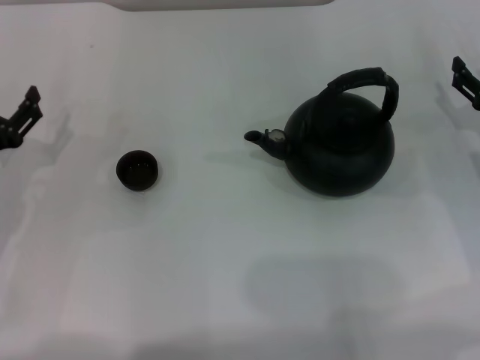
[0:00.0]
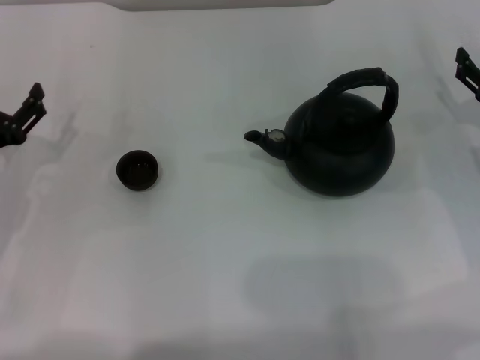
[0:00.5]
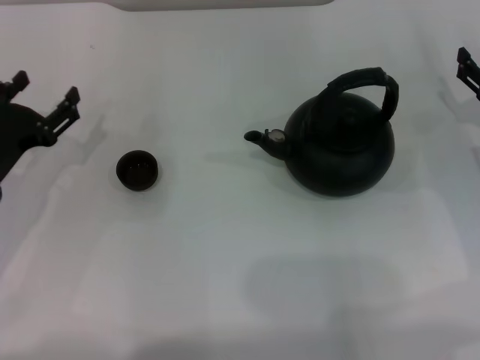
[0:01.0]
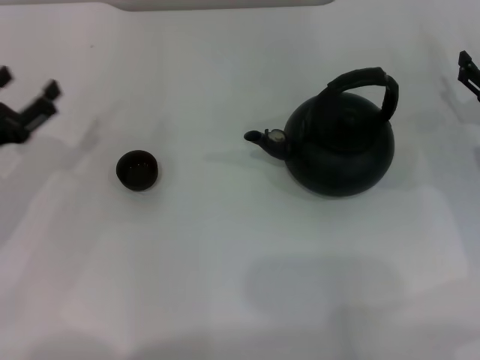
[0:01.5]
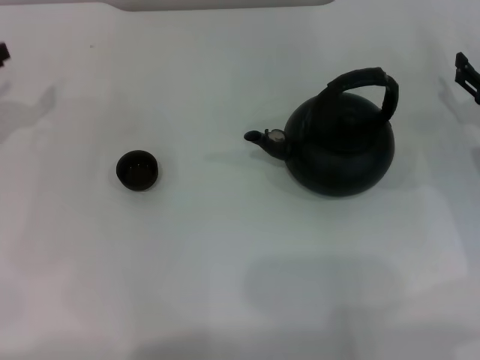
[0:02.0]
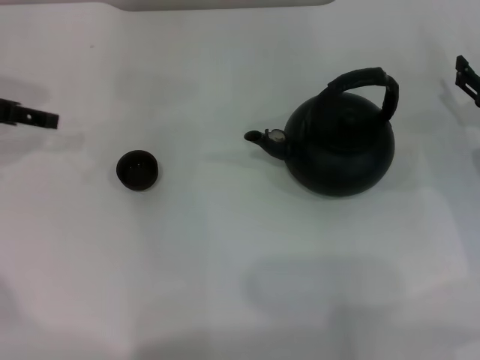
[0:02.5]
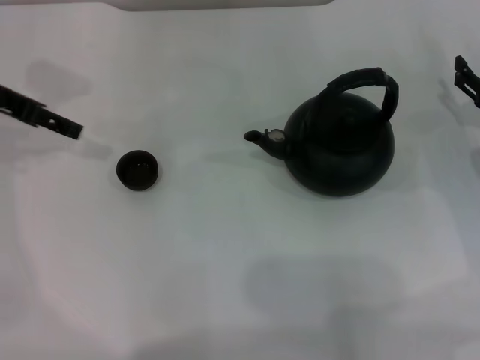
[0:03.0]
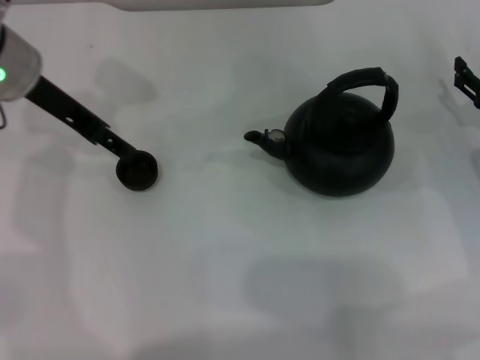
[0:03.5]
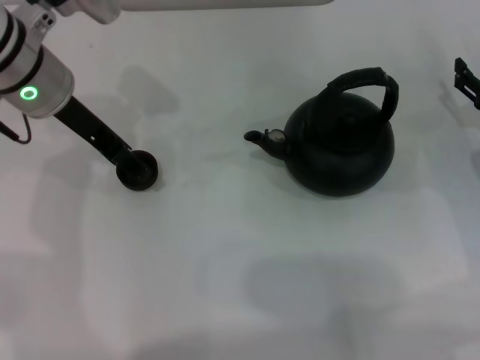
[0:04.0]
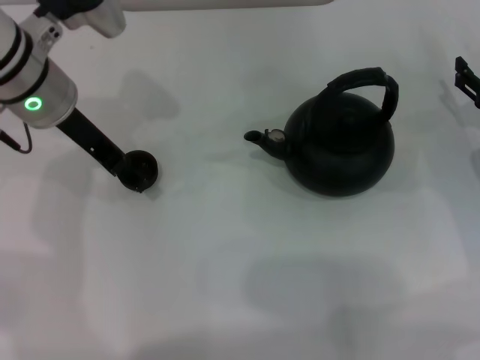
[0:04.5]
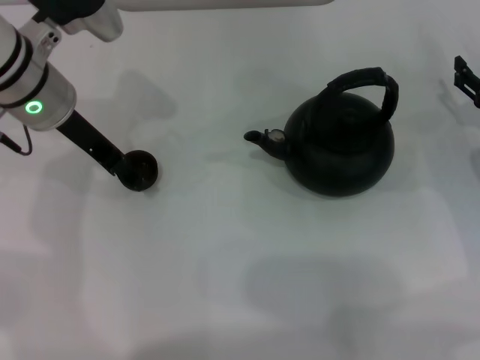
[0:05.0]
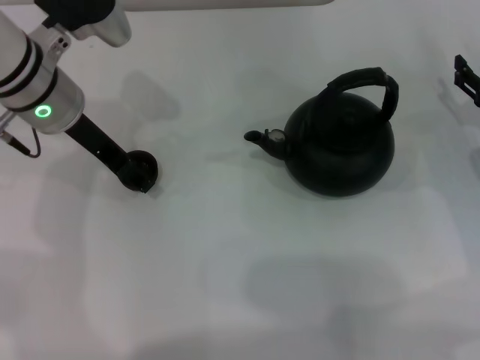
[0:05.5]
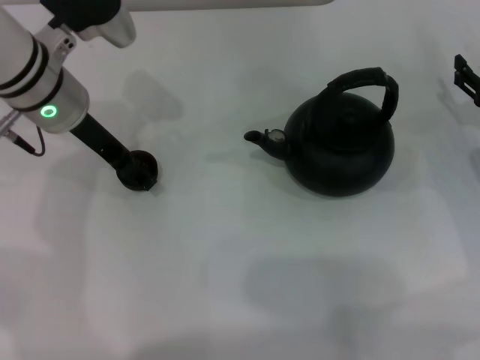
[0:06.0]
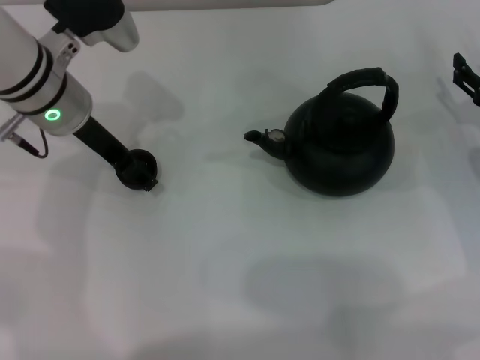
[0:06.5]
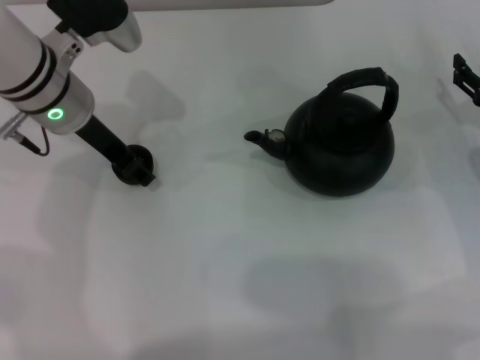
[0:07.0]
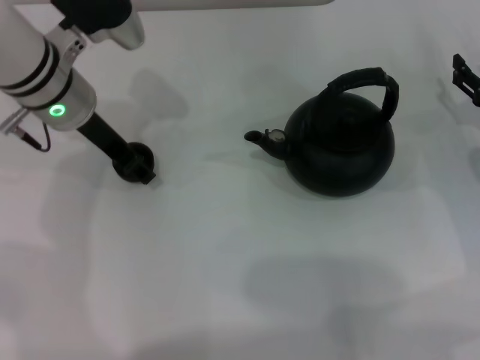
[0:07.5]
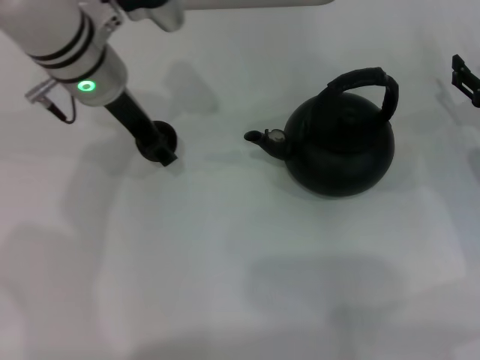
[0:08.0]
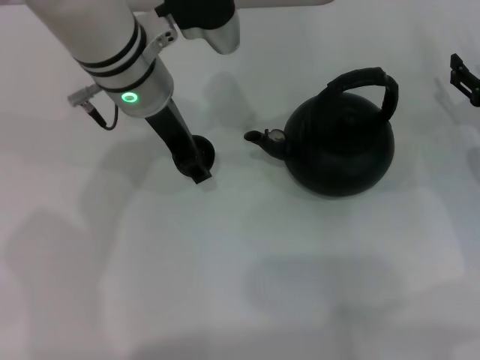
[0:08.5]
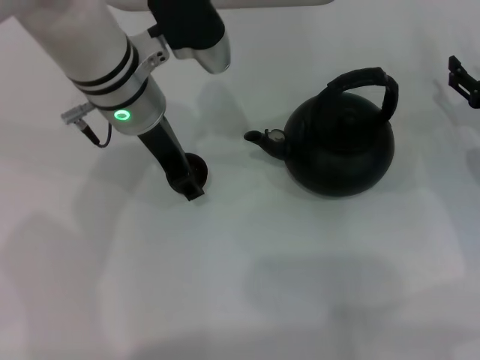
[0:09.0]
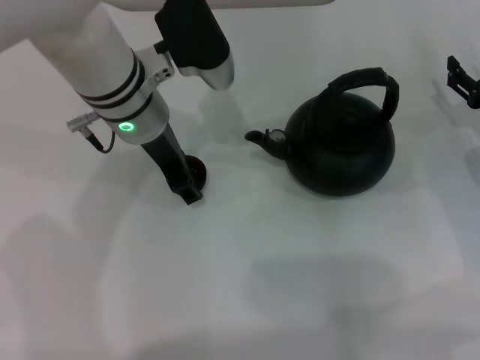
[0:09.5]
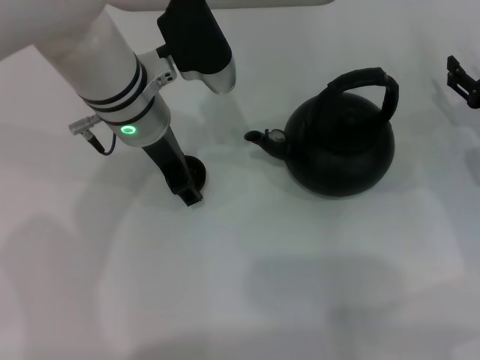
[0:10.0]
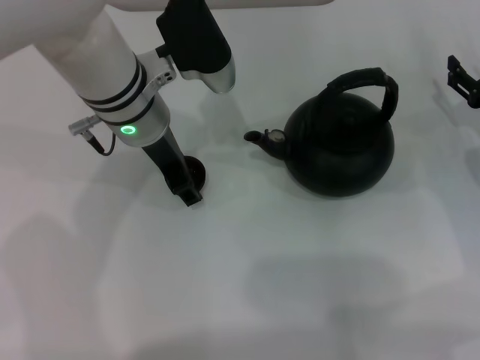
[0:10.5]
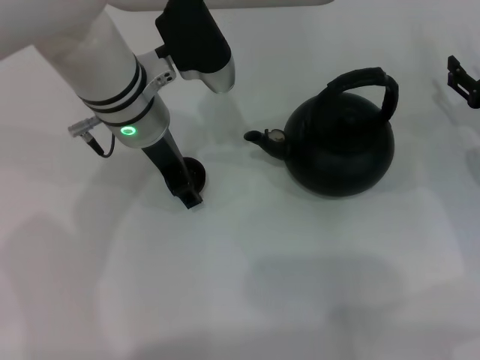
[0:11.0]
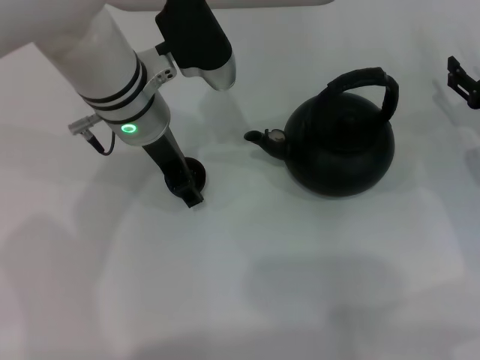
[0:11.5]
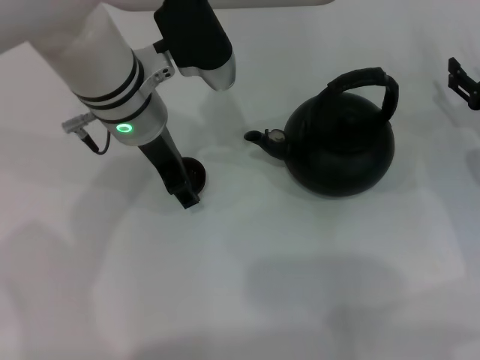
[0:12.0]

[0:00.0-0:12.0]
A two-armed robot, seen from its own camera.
Task of the whole recording: Grasp the handle of the teapot with one hand and pour tea into the teacup.
Step, 0:00.0 to 0:07.5: Pick up the teacup with the left gripper.
0:00.0 to 0:02.0: The left gripper travels upward, forward and to the left by roughly 10 cm.
0:02.0 to 0:04.0: The left gripper moves to the right, about 20 cm.
0:04.0 to 0:06.0: There are only small adjustments of the grippers.
0:06.0 to 0:08.0: The left gripper closes.
0:08.0 to 0:10.0: The left gripper ends up about 5 cm from where it was.
0:10.0 to 0:12.0: The left gripper opens its fingers.

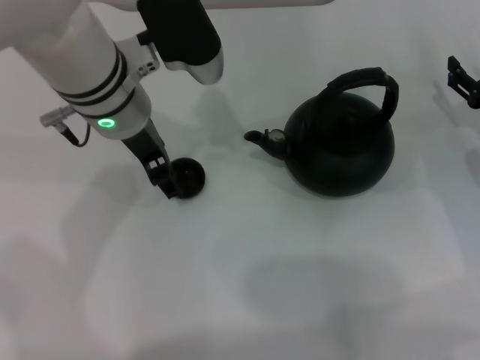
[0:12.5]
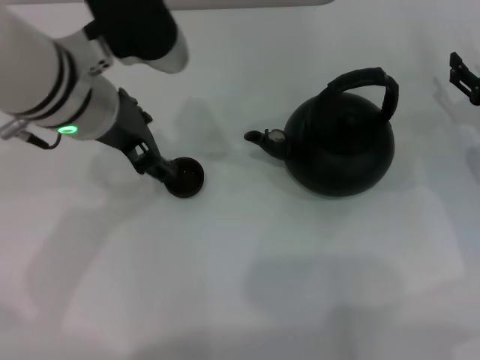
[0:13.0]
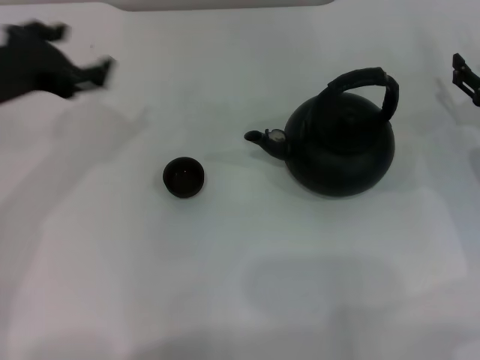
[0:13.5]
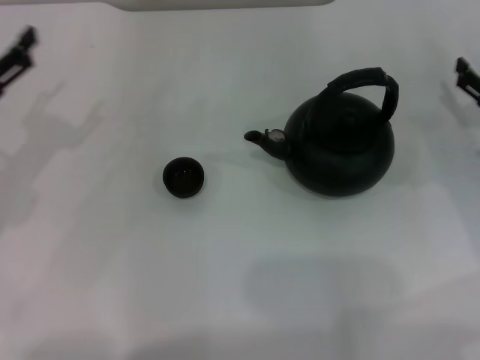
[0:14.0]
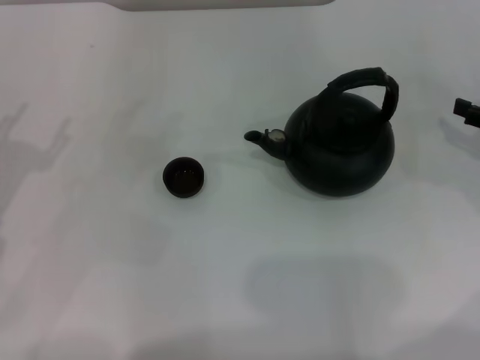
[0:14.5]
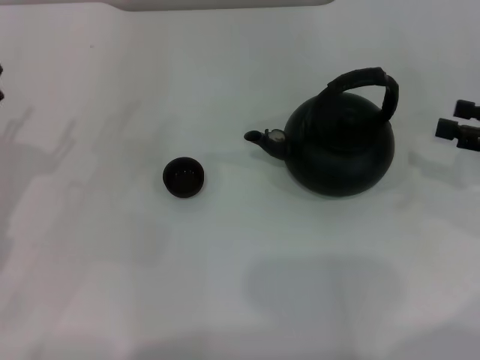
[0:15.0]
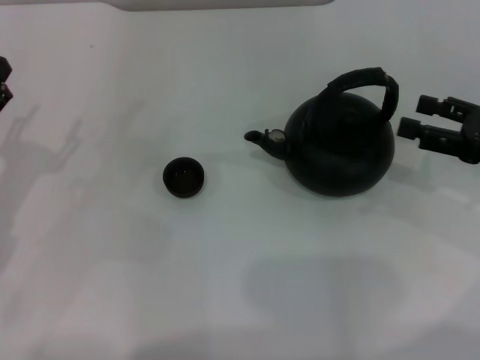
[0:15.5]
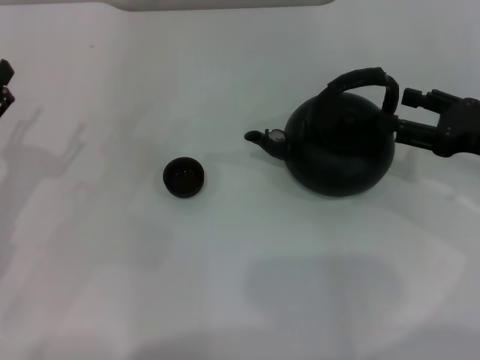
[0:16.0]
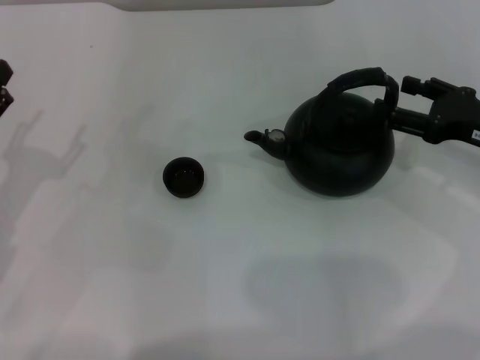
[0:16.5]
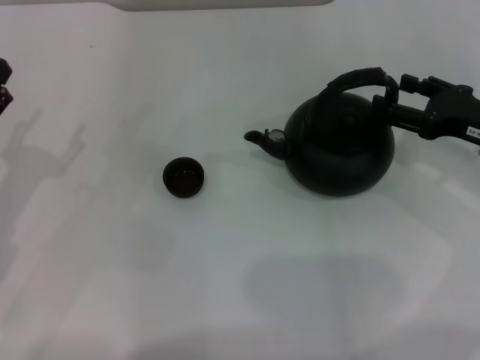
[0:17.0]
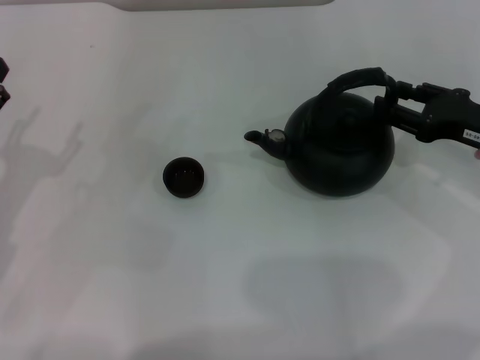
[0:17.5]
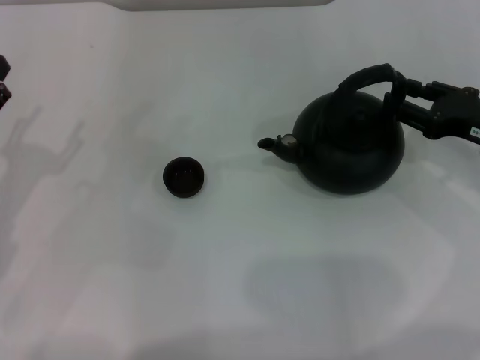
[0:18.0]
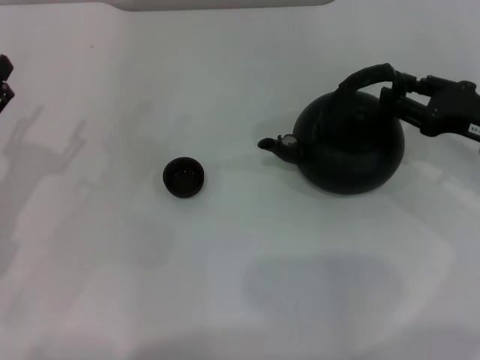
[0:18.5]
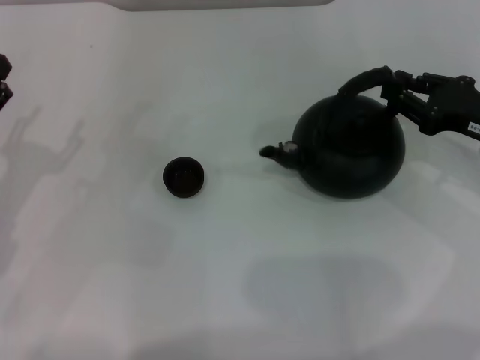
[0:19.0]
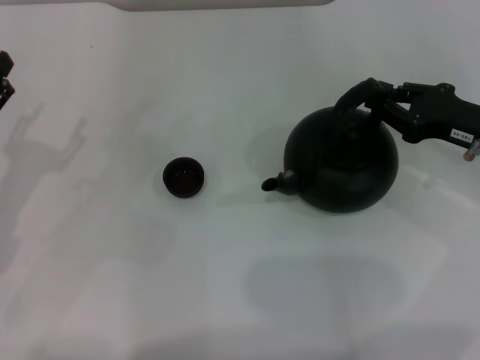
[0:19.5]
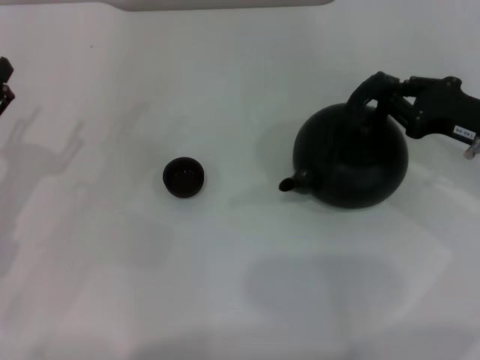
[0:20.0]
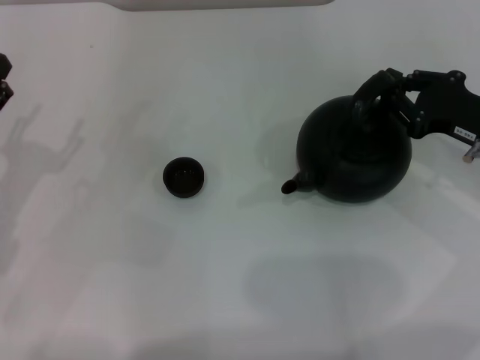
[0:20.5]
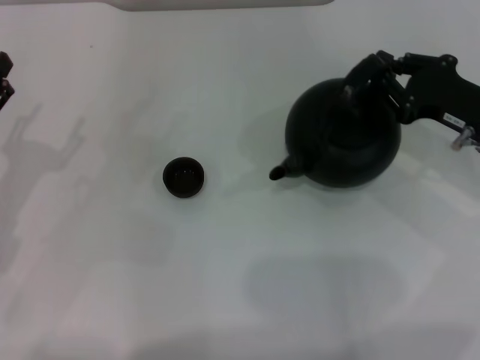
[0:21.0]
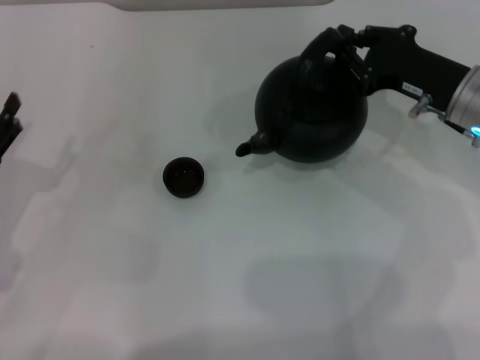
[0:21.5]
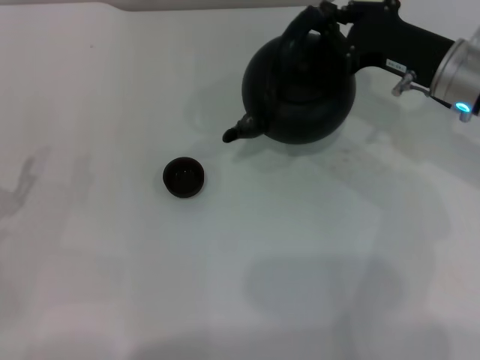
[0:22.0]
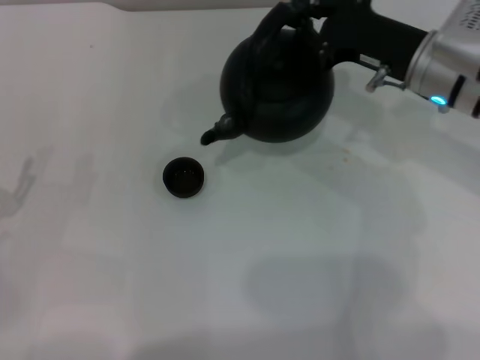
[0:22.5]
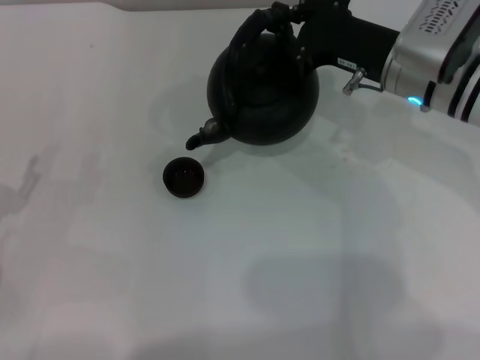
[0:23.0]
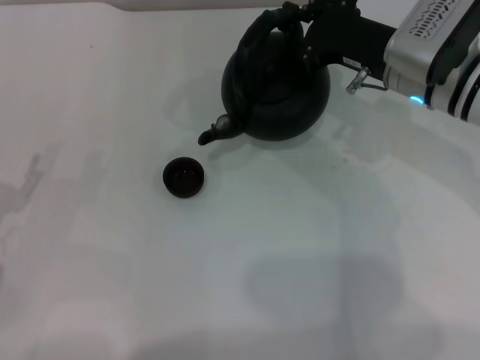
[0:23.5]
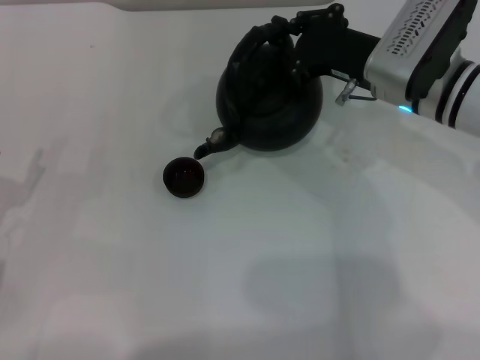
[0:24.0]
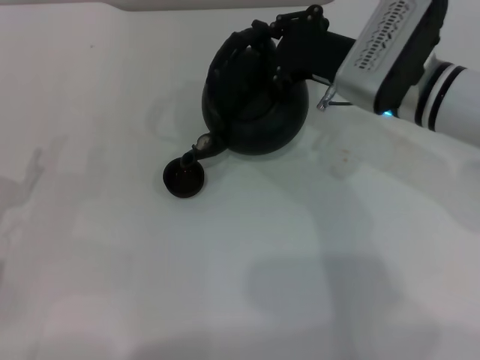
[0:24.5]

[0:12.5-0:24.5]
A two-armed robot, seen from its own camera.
Task of the whole recording: Grasp the handle of the teapot with one hand and pour tea into the teacup.
Step, 0:13.5 to 0:21.0: Pick up the teapot with the right gripper.
0:12.5 to 0:14.5: The left gripper heads to the left and backward, covering some 25 cm, while the right gripper is displaced to the right by roughly 5 cm.
0:14.5 to 0:16.5: The right gripper is displaced to the left by approximately 5 cm.
0:16.5 to 0:18.5: The right gripper closes its fingers.
0:18.5 to 0:20.5: The right gripper closes.
0:20.5 to 0:22.5: The left gripper shifts by about 5 cm; the right gripper moves to the left and forward, about 10 cm.
0:22.5 to 0:24.5: The grippers stay close to where they were, moving slightly.

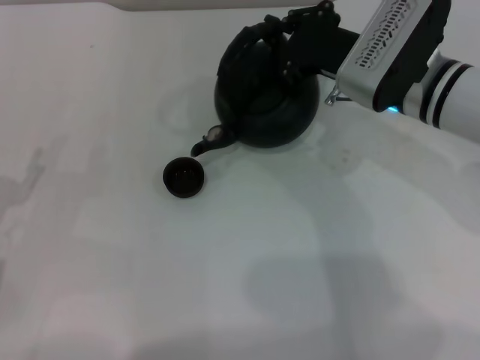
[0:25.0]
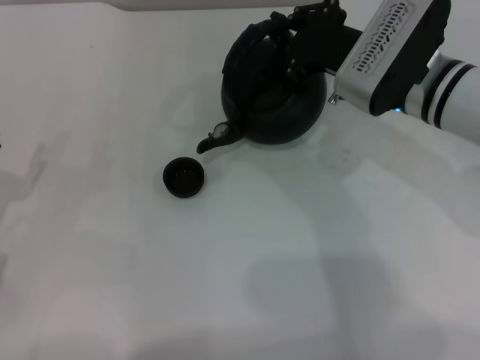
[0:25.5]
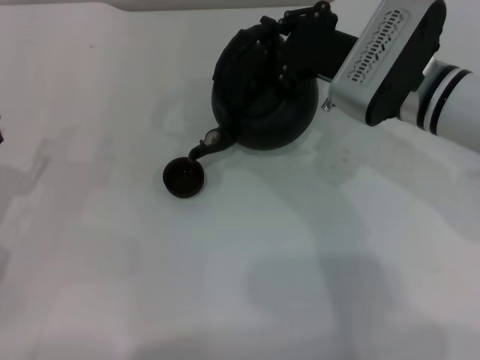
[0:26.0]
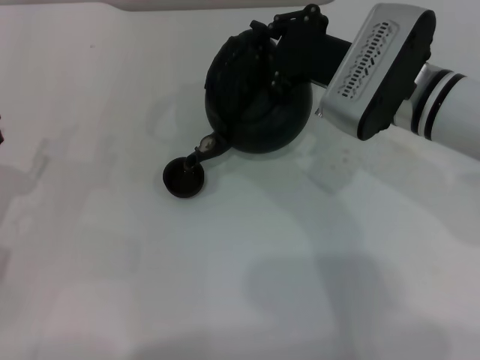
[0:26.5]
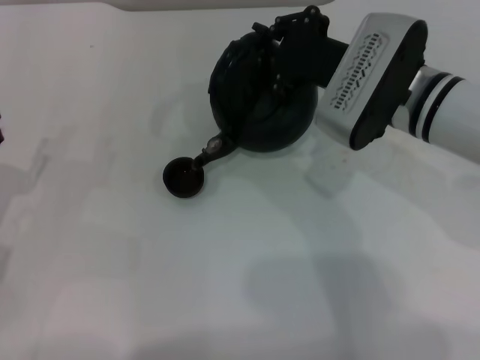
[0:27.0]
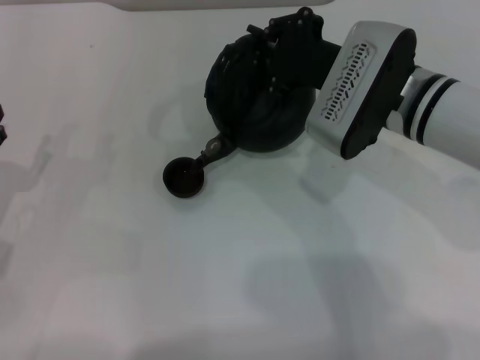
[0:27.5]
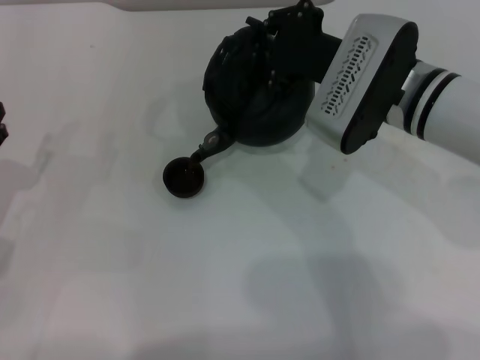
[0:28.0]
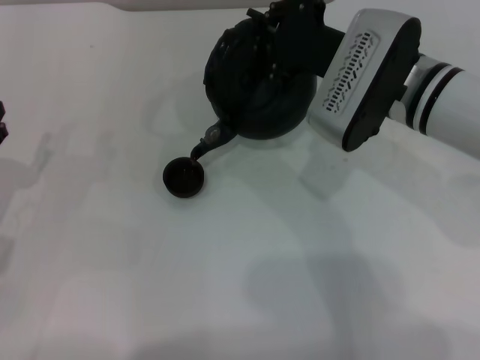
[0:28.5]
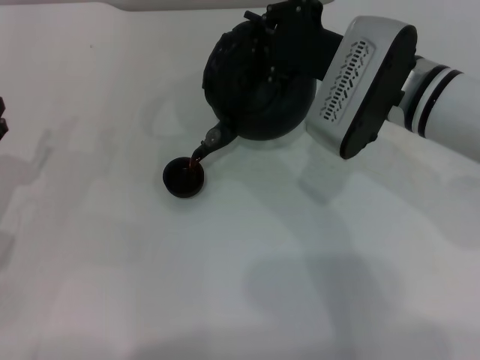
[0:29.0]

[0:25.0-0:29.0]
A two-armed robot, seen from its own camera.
Task of the whole recording: Grasp the handle of the teapot with one hand and pour tea into the teacup.
0:25.0 to 0:29.0: There are only small adjustments of the grippers.
